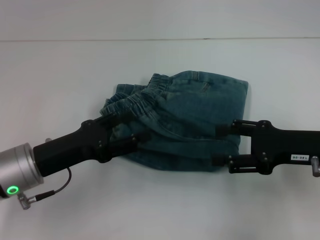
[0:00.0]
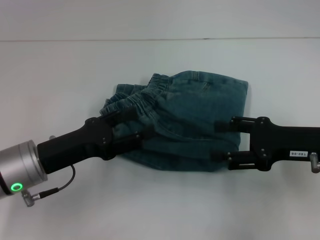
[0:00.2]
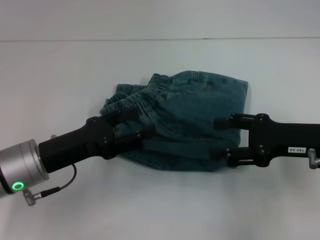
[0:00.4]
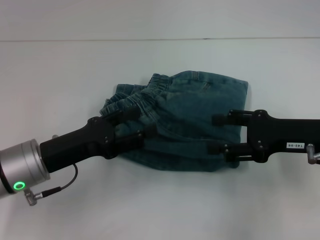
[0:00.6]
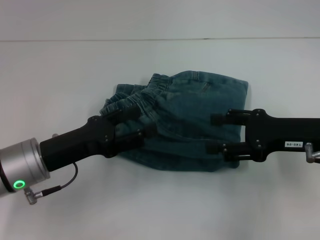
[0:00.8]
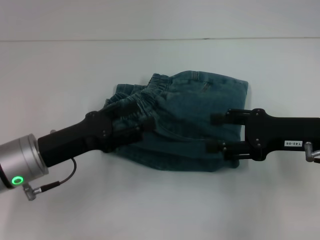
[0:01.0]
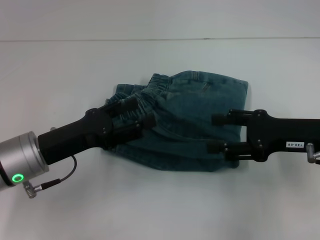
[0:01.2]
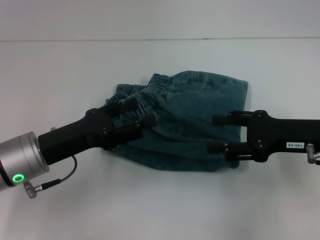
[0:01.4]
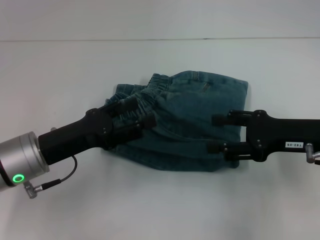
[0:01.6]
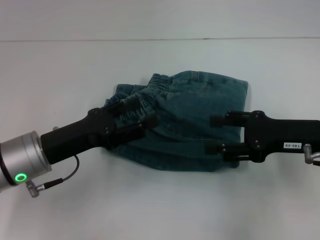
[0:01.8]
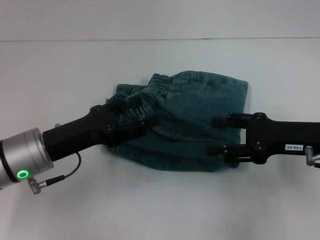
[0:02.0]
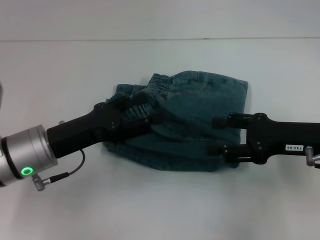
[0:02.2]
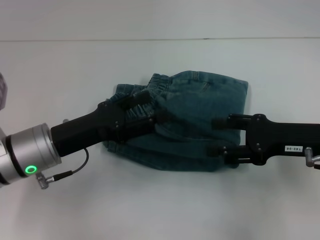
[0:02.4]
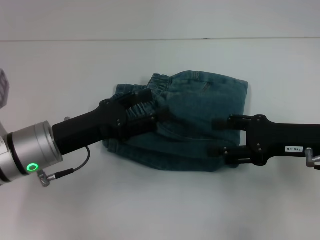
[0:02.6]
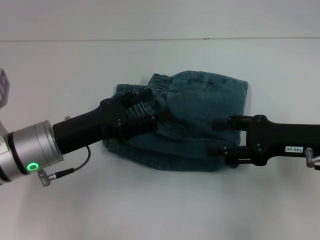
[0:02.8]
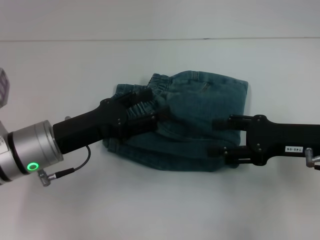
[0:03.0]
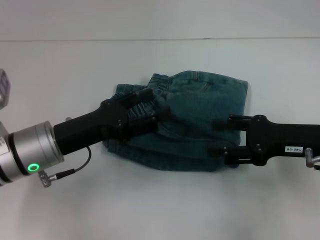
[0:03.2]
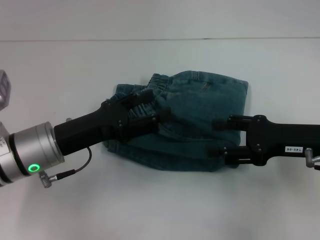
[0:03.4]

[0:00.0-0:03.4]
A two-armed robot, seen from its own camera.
0:00.0 to 0:03.4: The grippers move only a little.
